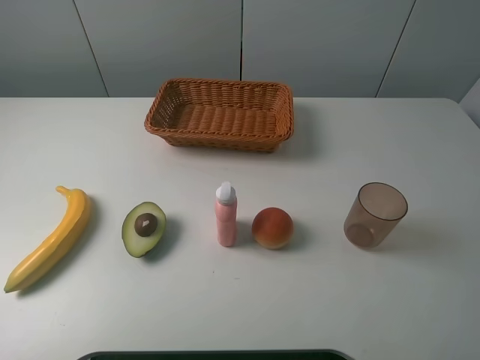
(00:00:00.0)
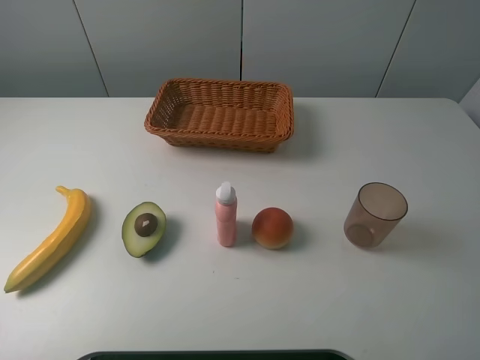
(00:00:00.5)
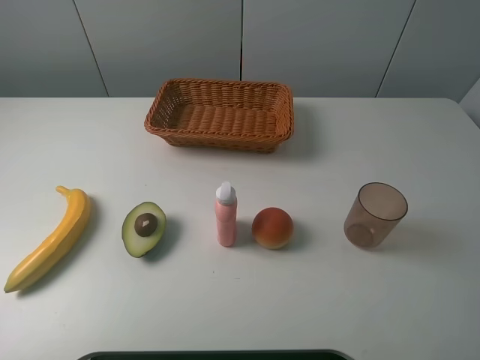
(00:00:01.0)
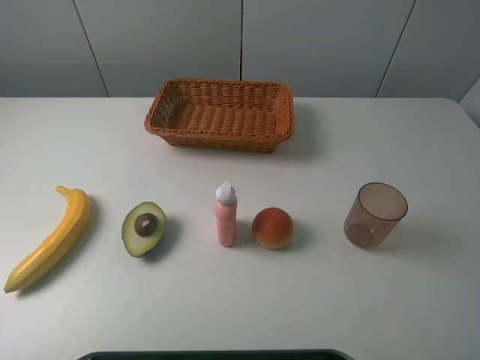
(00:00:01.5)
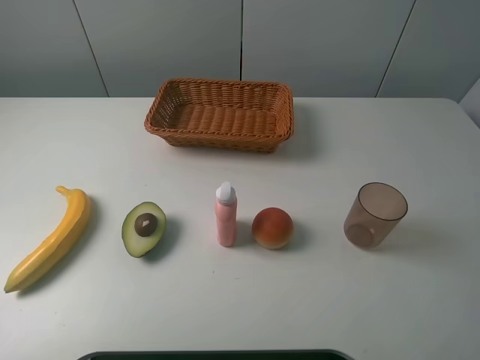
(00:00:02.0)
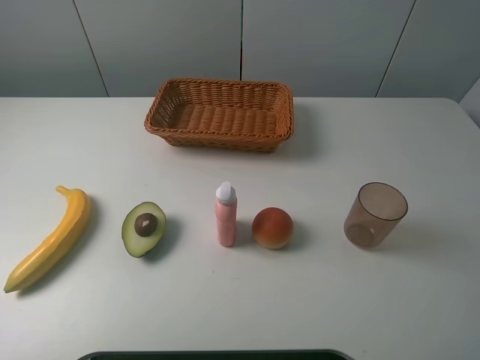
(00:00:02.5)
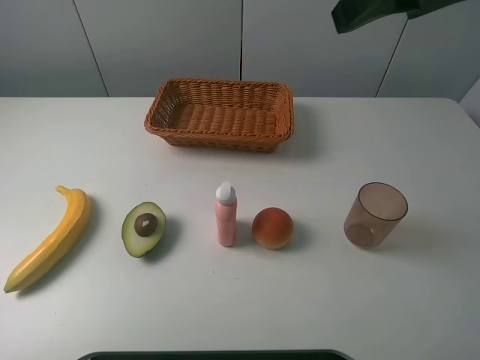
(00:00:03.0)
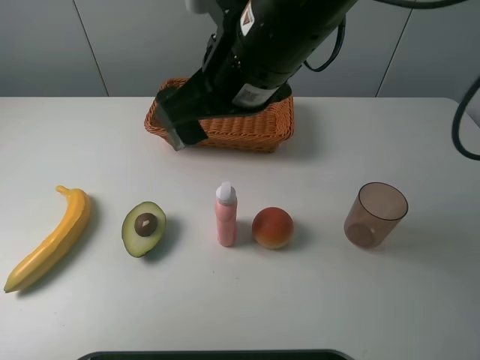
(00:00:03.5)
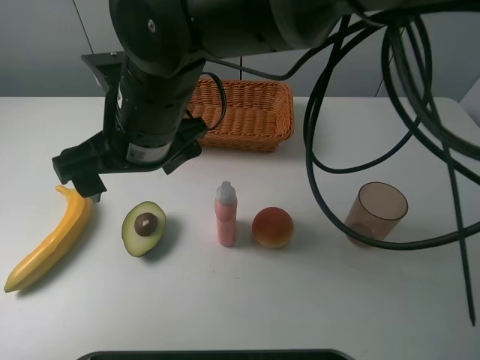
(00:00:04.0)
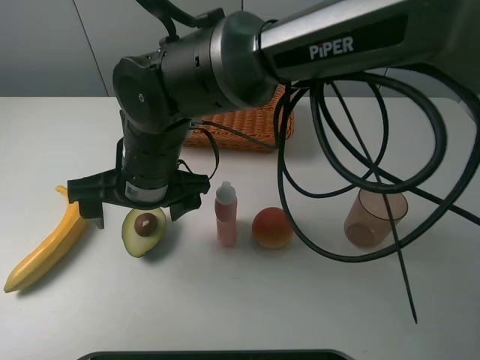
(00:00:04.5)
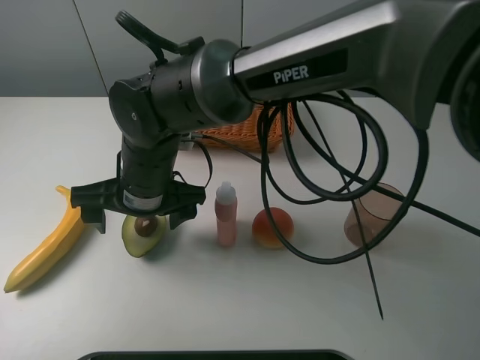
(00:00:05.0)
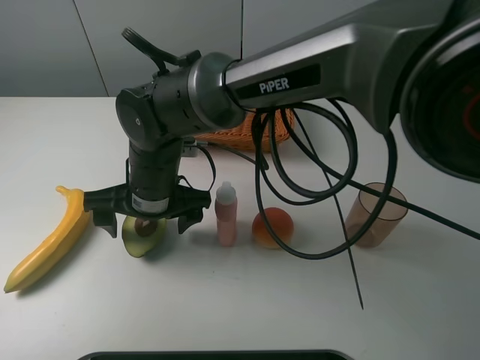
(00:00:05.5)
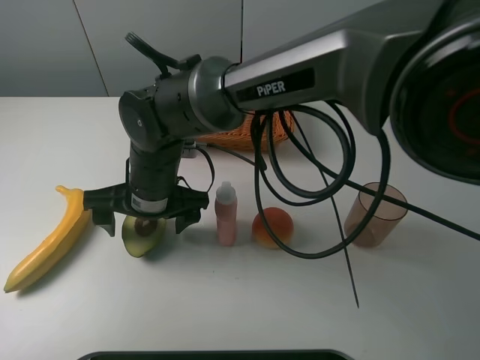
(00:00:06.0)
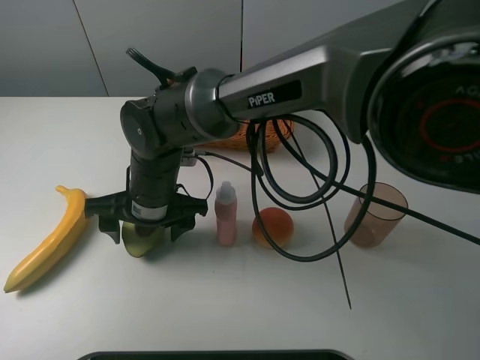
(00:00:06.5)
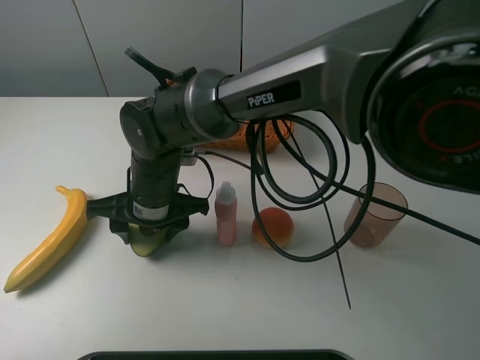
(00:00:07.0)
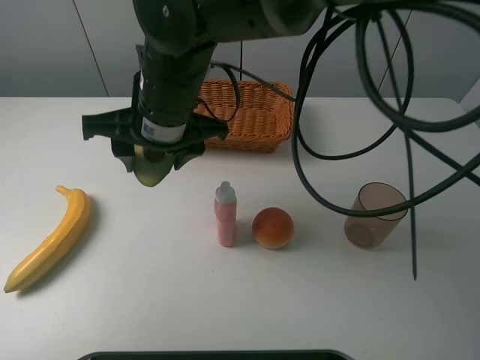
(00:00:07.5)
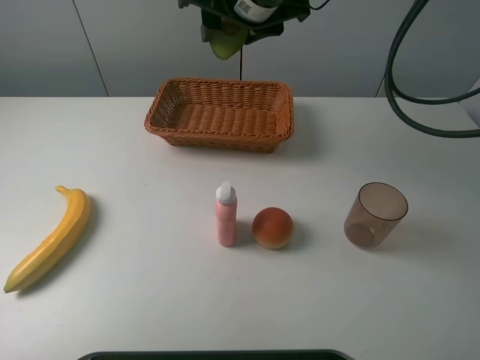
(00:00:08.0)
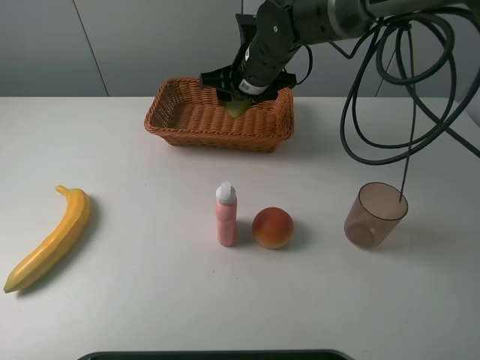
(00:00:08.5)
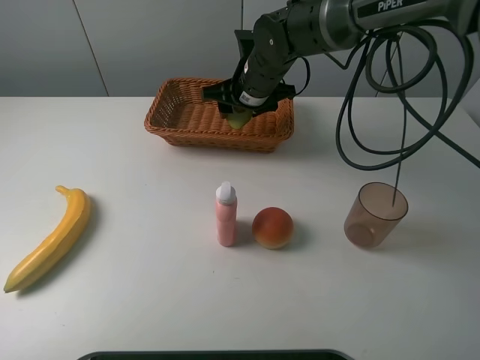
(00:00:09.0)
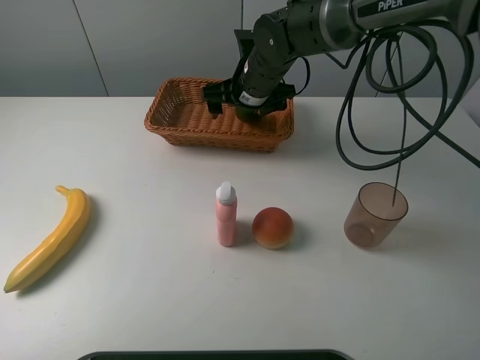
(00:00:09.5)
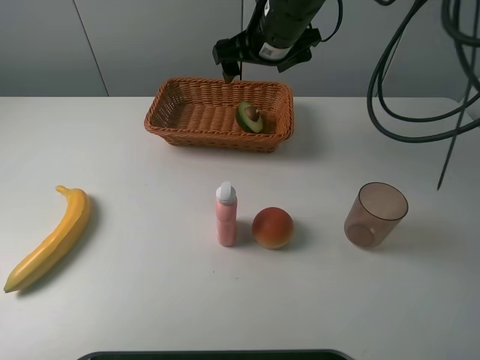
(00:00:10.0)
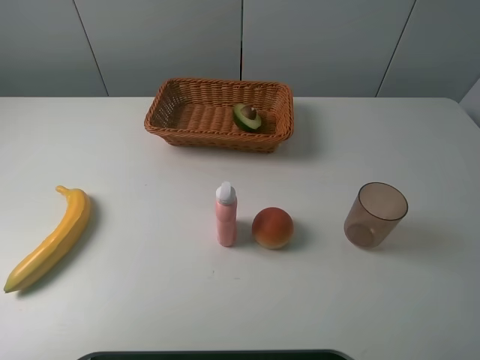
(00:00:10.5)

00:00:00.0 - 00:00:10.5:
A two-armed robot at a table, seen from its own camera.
Task of the whole recording: randomly pick up an item from the table and put it in the basket.
Step, 00:00:00.0 - 00:00:06.5: Grasp the avocado with the right gripper.
Step, 00:00:07.0 - 00:00:10.0: Place the avocado into the basket with the right gripper.
00:00:02.0 - 00:00:04.0: The right gripper travels to the left and forward by roughly 40 cm.
00:00:04.0 - 00:00:06.5: The right gripper moves downward, some 10 cm, and closes its fingers.
00:00:06.5 - 00:00:08.5: The right gripper shifts roughly 20 cm forward and to the right, and travels upward and back again, about 20 cm each way.
00:00:08.5 - 00:00:10.5: The right gripper moves upward, to the right and backward, roughly 40 cm, and opens.

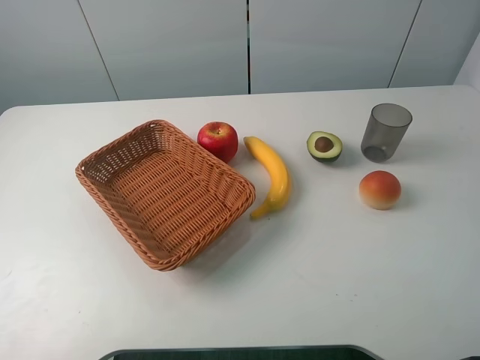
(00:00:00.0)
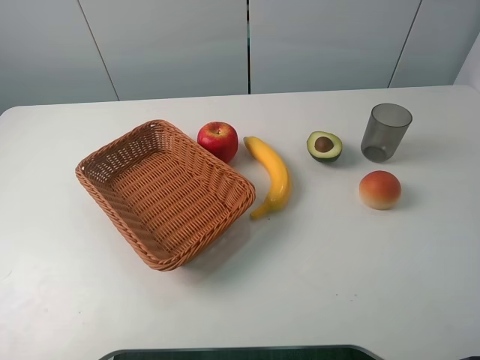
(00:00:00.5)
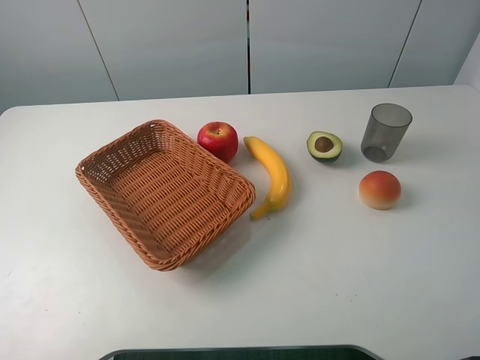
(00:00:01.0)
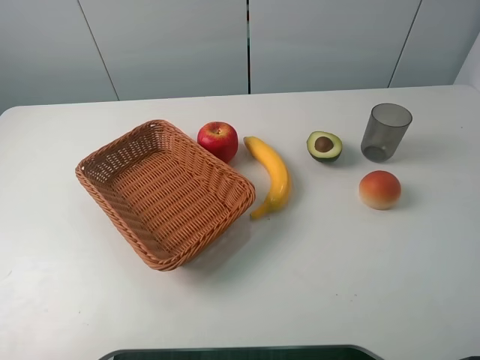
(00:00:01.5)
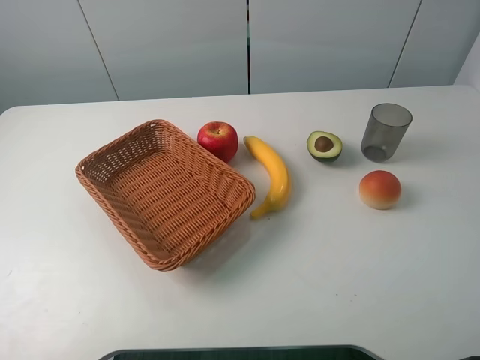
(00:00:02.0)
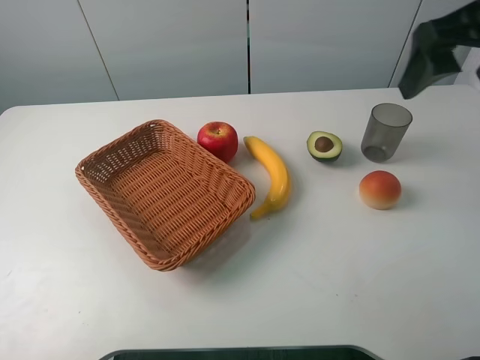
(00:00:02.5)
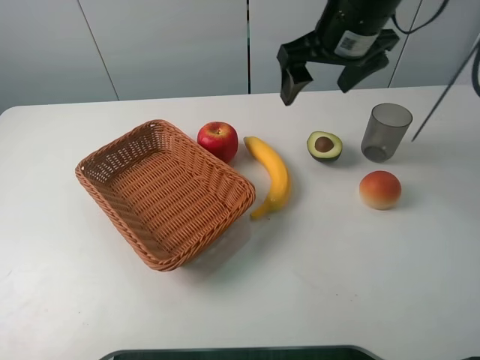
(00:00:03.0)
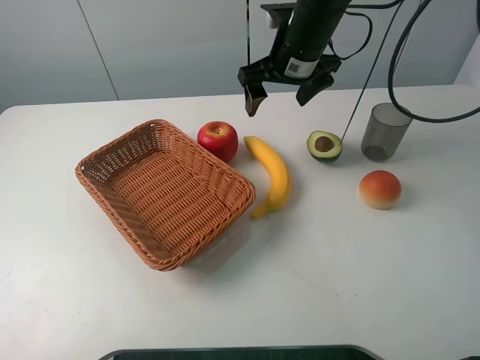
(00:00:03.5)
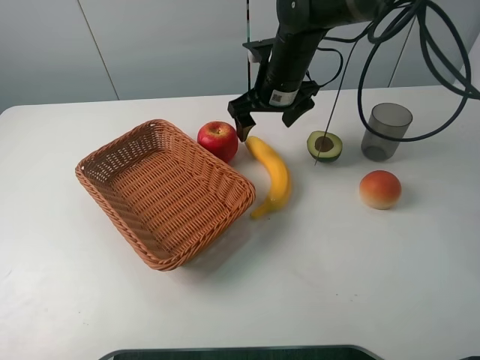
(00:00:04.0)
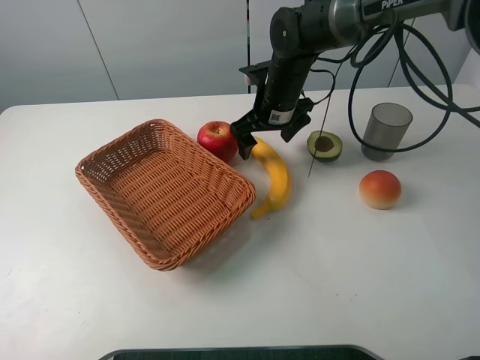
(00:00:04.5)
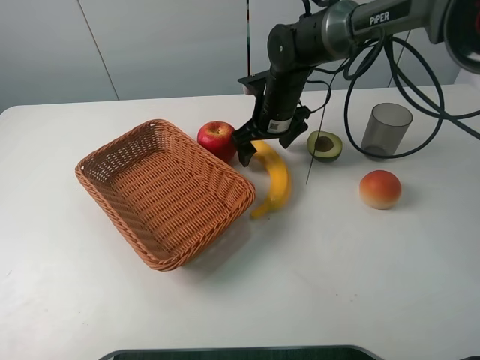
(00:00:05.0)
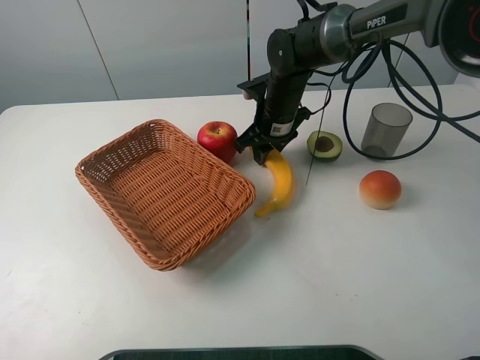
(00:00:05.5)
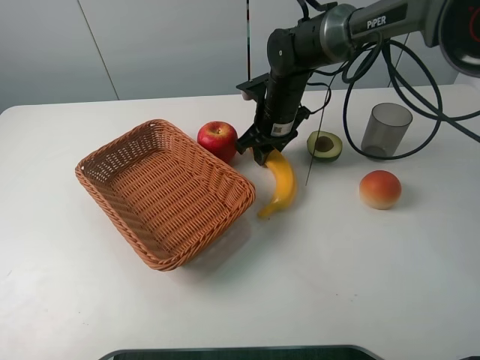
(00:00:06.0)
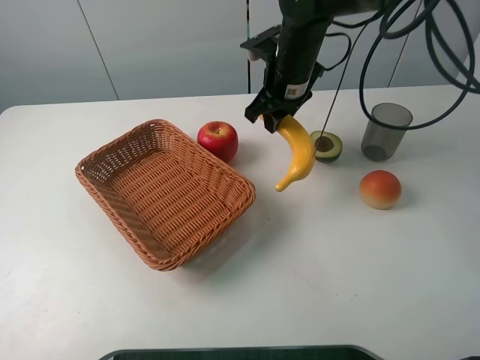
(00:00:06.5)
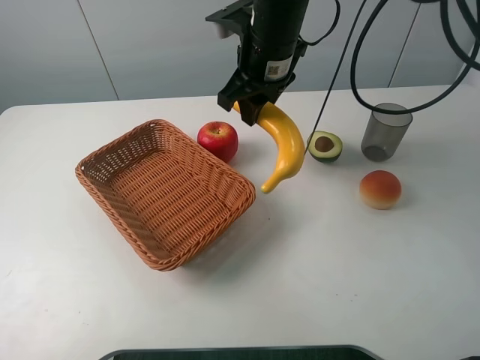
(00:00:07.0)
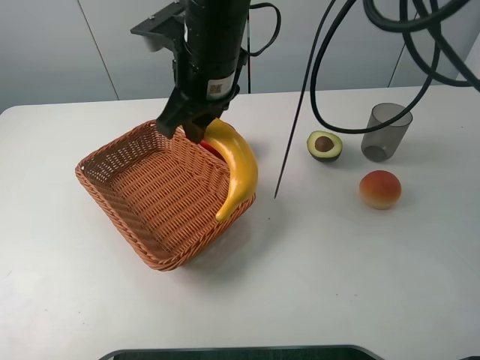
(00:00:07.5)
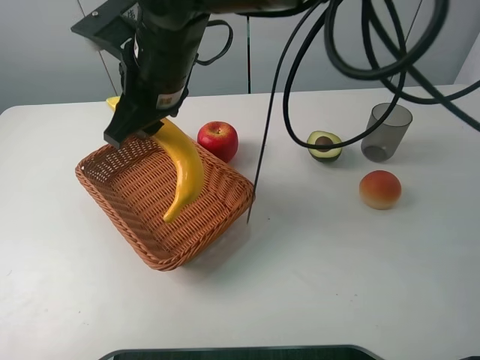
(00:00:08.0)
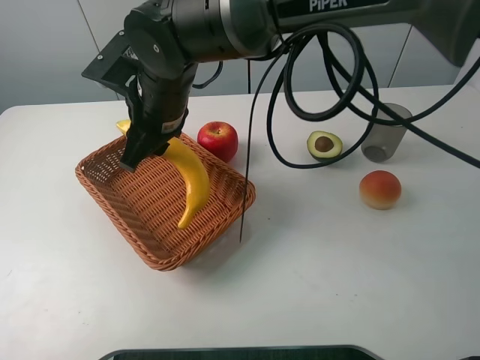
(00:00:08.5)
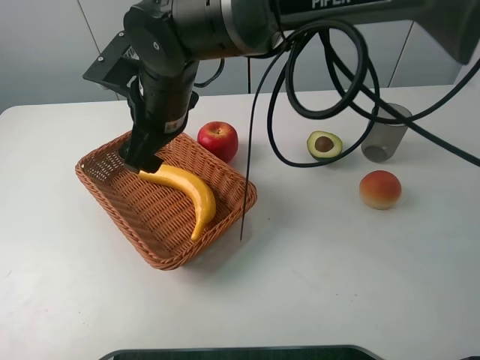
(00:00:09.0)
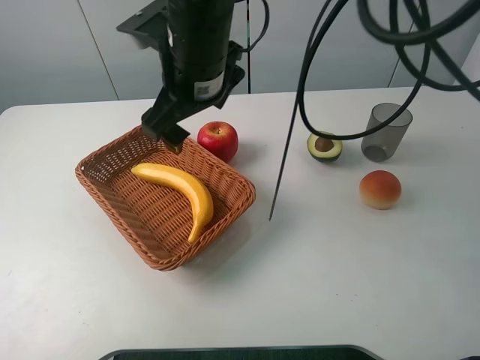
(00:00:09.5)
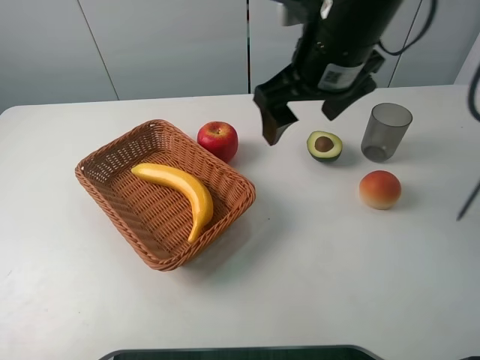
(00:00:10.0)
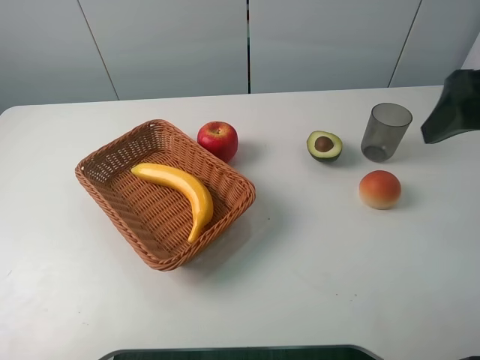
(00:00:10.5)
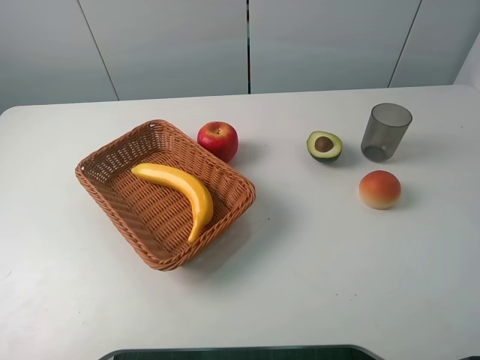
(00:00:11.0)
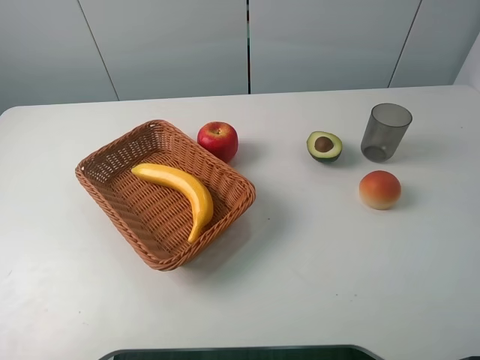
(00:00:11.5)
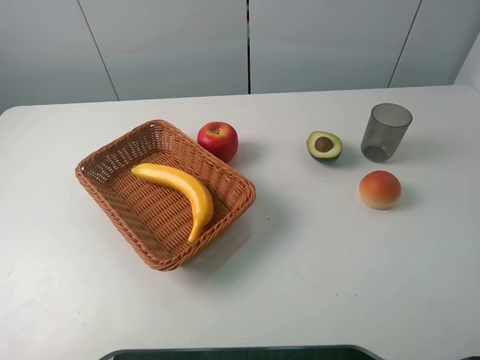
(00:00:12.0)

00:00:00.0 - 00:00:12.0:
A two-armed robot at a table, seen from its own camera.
Task of the whole recording: randomly pick up an item from the table and put it in the basket.
Step, 00:00:00.0 - 00:00:05.5: Grasp the banana with the right gripper.
Step, 00:00:06.0 - 00:00:09.0: Place the banana into the basket with the right gripper.
00:00:02.0 - 00:00:04.0: The right gripper shifts about 40 cm forward, to the left and downward.
00:00:04.0 - 00:00:06.0: The right gripper goes roughly 5 cm downward, and closes.
00:00:06.0 - 00:00:08.0: The right gripper is displaced to the left, upward and backward by roughly 25 cm.
00:00:08.0 - 00:00:10.0: The right gripper heads to the right, covering some 20 cm, and opens.
00:00:10.0 - 00:00:12.0: The right gripper travels backward and to the right by about 35 cm.

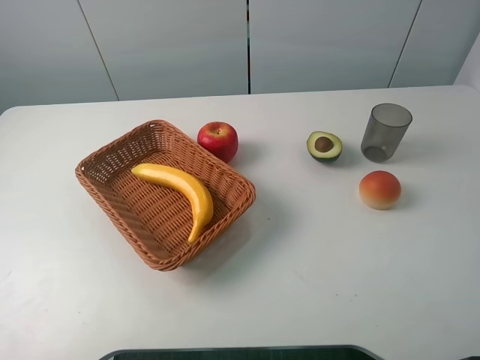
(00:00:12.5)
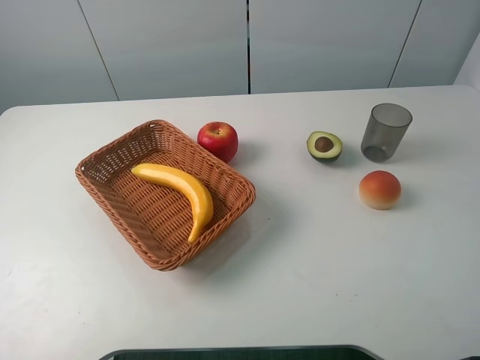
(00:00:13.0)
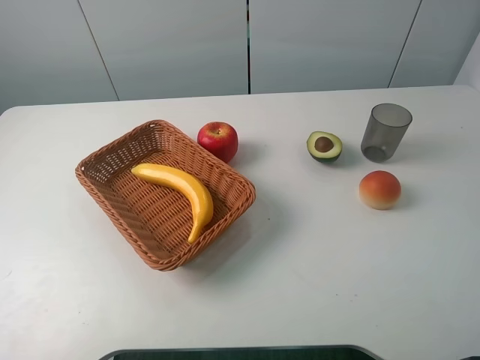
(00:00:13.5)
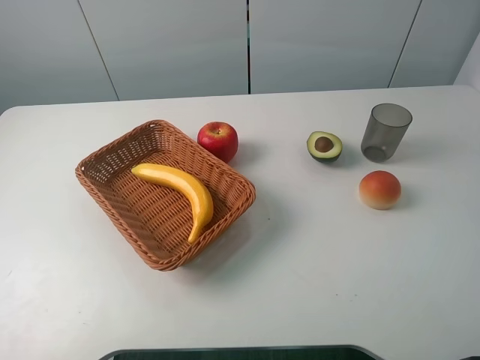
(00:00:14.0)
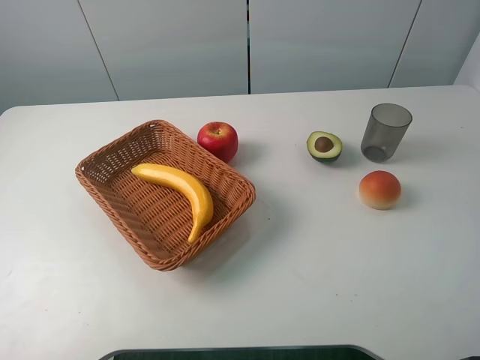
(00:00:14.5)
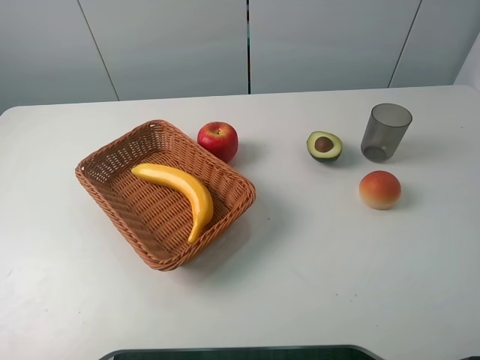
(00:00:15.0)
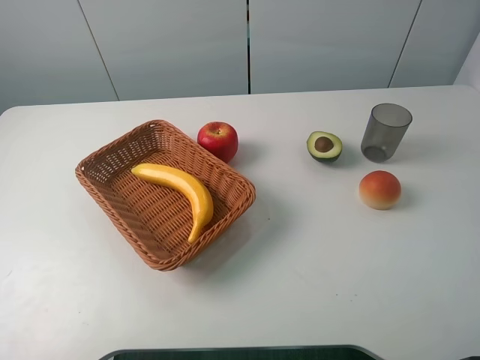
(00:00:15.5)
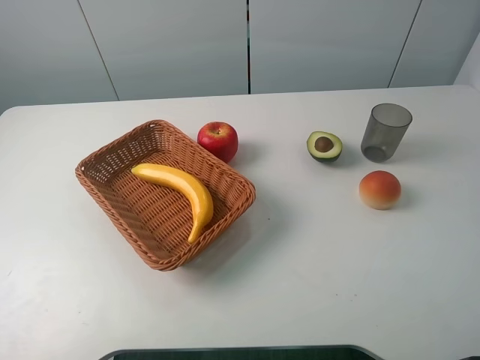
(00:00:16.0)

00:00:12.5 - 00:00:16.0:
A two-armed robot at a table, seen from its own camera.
Task of the whole recording: randomly pick up an item from the table and put it in the basket.
00:00:14.5 - 00:00:16.0: The two grippers keep their place.
